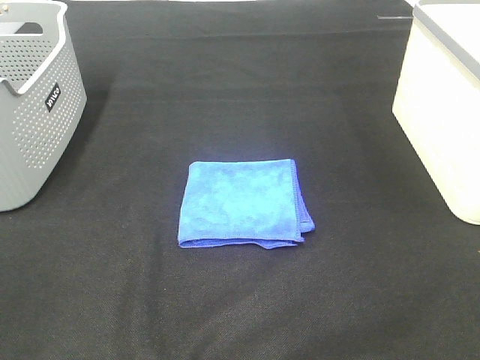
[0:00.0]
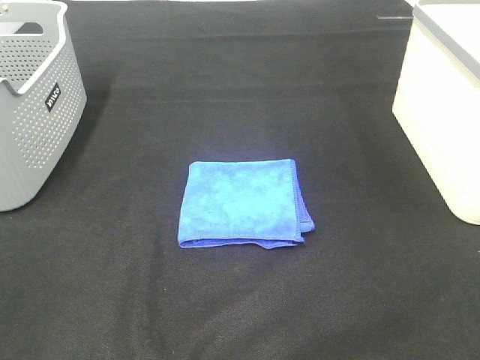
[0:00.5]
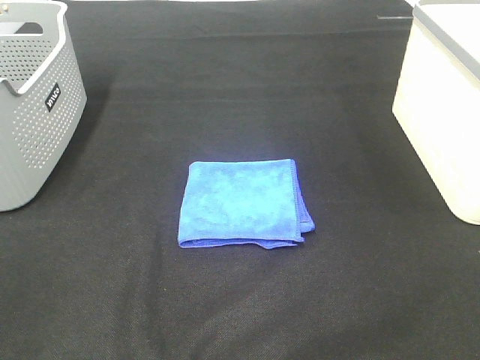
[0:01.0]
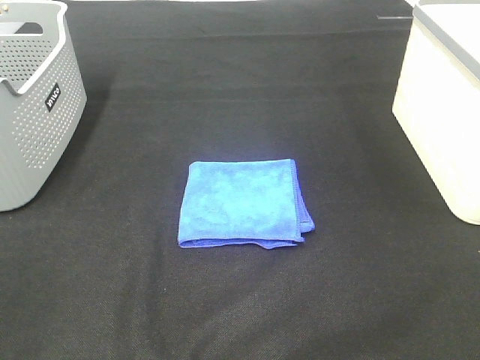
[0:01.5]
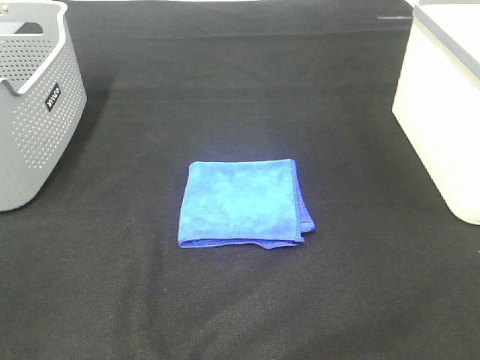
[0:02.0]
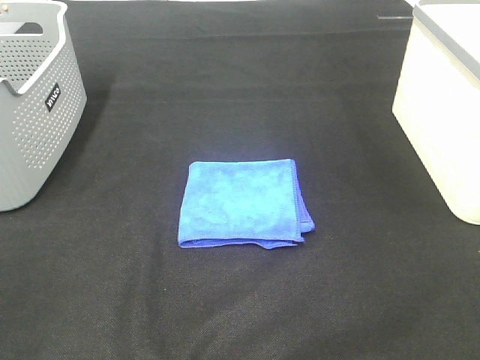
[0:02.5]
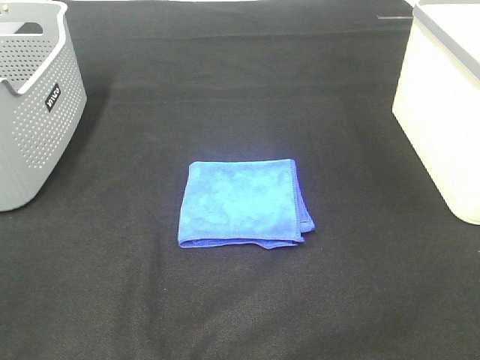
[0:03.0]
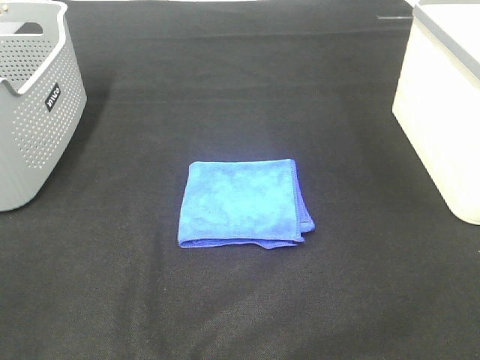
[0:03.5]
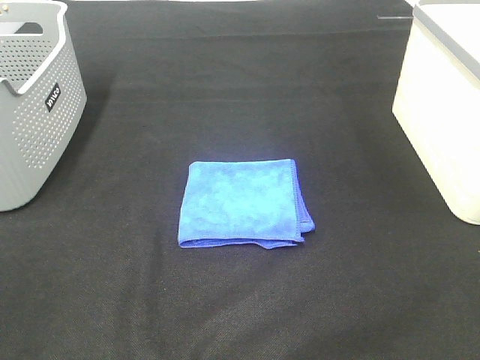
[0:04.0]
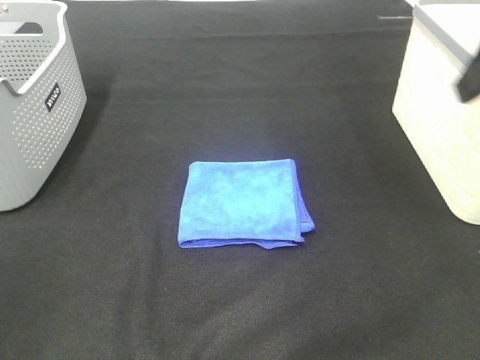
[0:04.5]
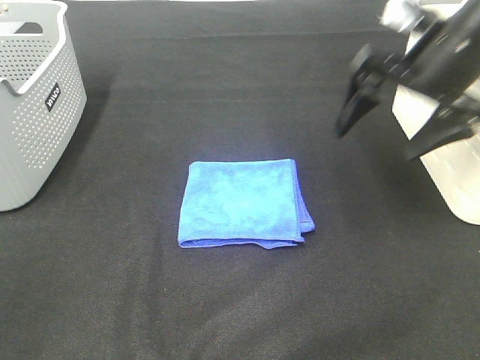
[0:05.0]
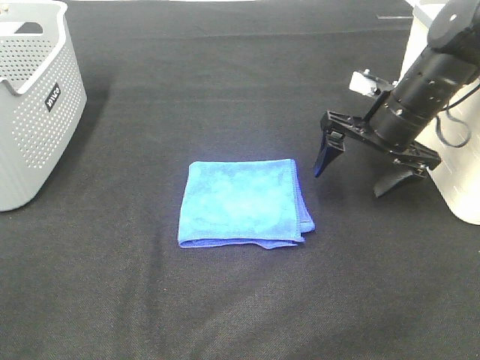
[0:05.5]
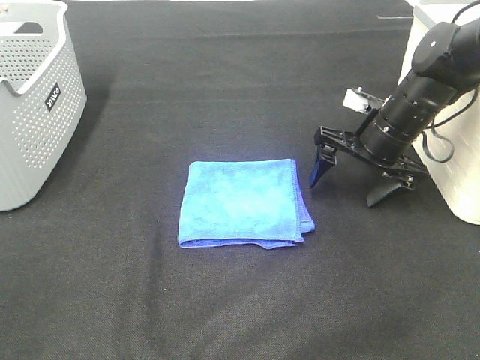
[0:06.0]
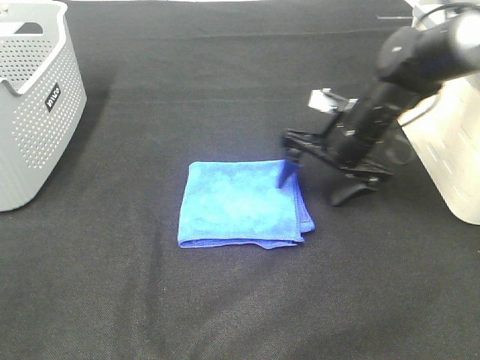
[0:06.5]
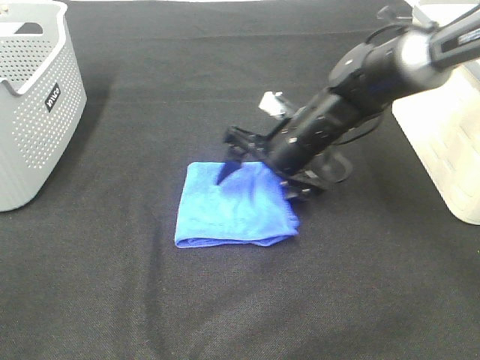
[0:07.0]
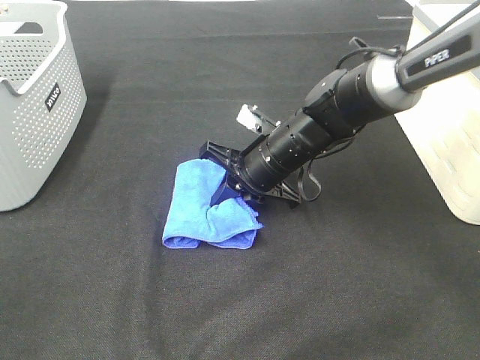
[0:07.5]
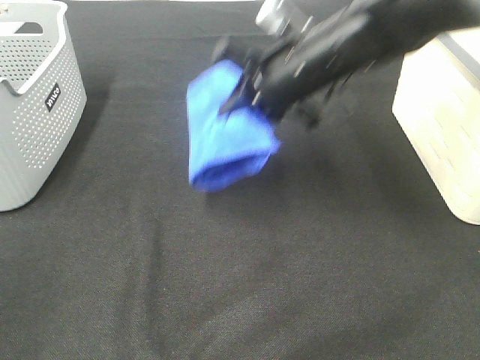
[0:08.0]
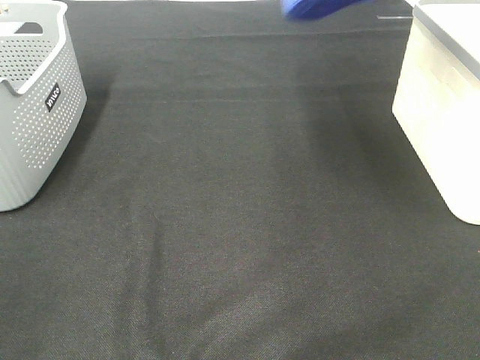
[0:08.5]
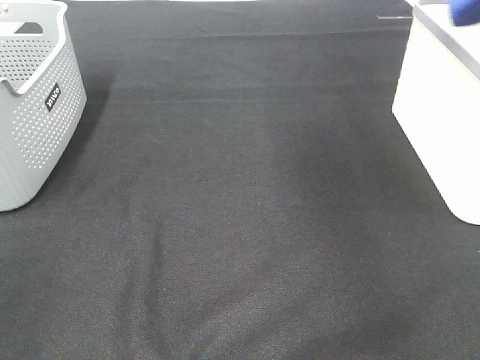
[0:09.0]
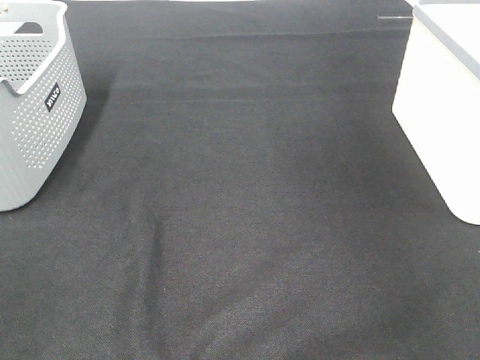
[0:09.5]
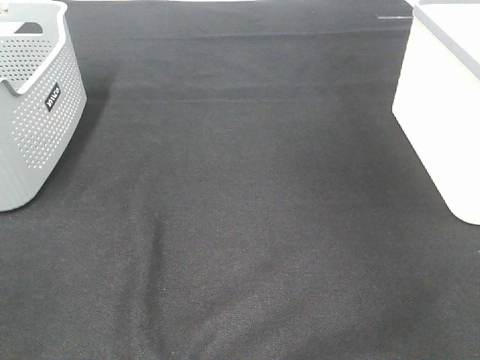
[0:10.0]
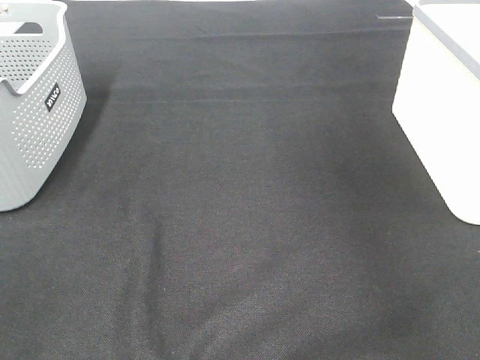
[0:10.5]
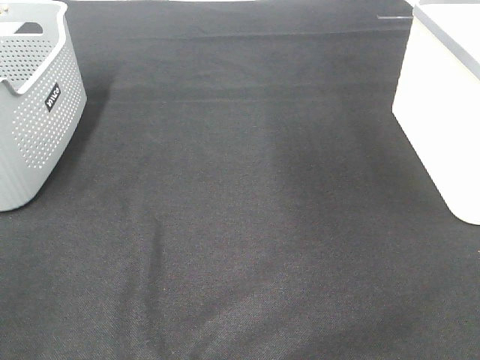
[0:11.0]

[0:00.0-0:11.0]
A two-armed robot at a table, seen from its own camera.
Step, 0:00.0 to 0:07.0: Right hand: grab the folded blue towel.
Step, 0:07.5 to 0:10.0: Right hand: place the blue towel in right basket.
0:00.0 to 0:03.5: Neither gripper changes place.
0:03.5 to 0:05.5: The right gripper goes approximately 40 cm forward.
0:05.5 to 0:07.5: The right gripper shifts roughly 15 cm to the left and downward, and closes.
0:07.5 to 0:09.0: The right gripper travels upward and to the right by approximately 40 cm.

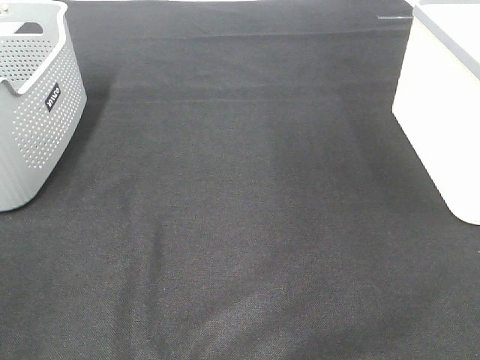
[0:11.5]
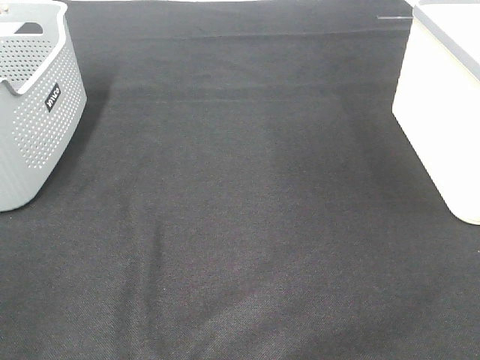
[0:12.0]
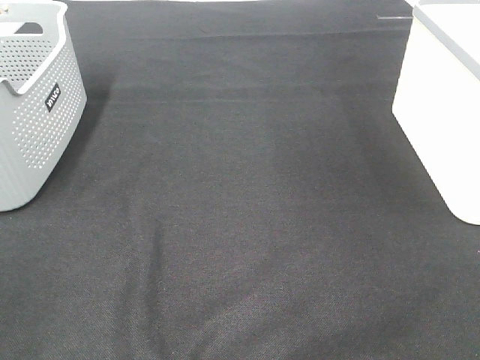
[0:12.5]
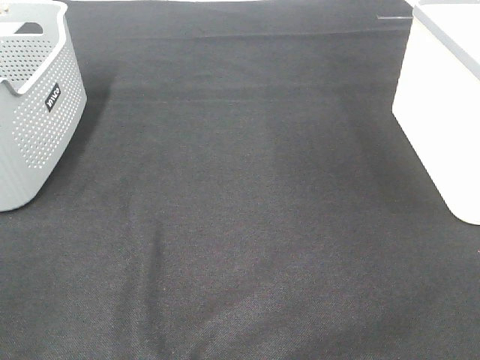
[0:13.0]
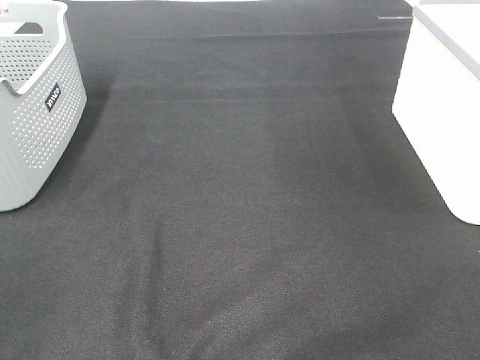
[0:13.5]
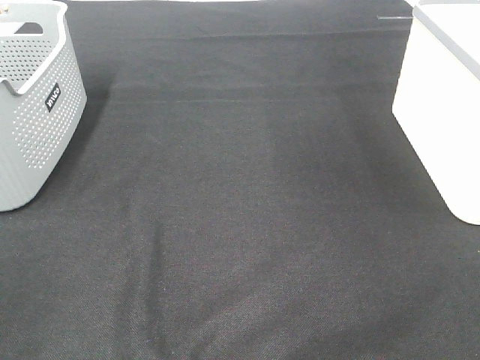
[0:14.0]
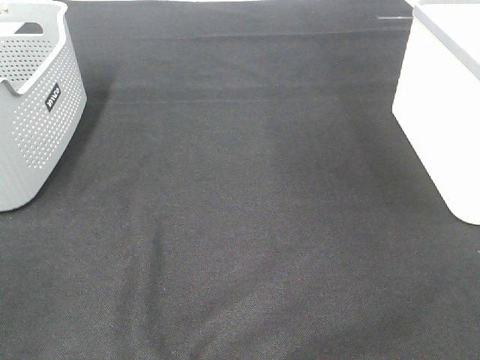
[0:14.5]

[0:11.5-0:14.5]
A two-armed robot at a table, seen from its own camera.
0:13.0 to 0:14.5: Neither gripper changes place.

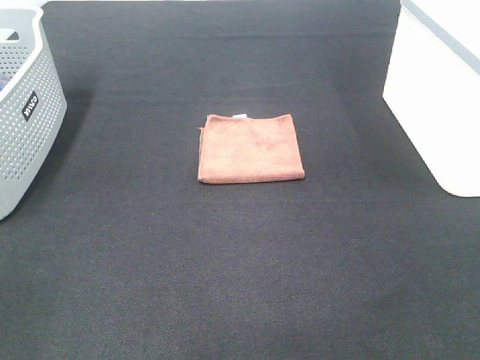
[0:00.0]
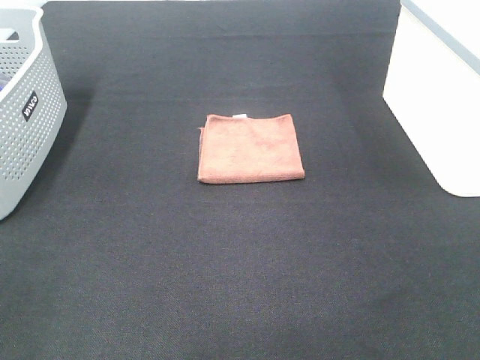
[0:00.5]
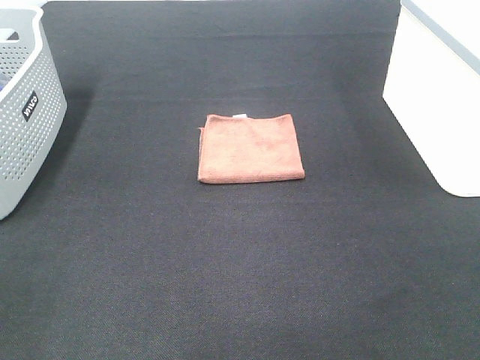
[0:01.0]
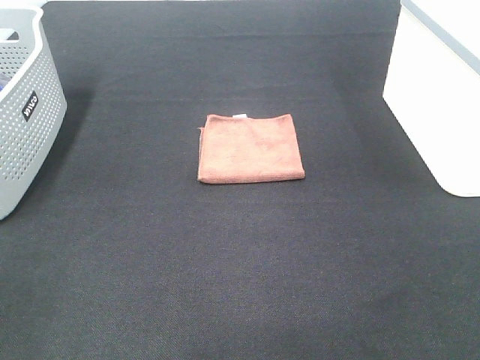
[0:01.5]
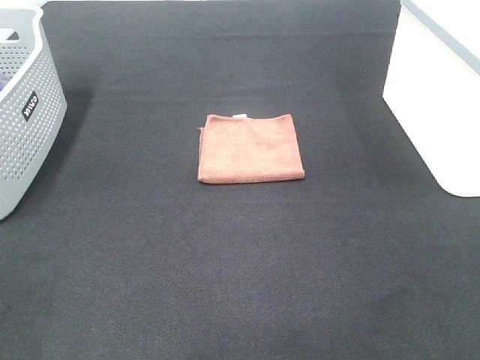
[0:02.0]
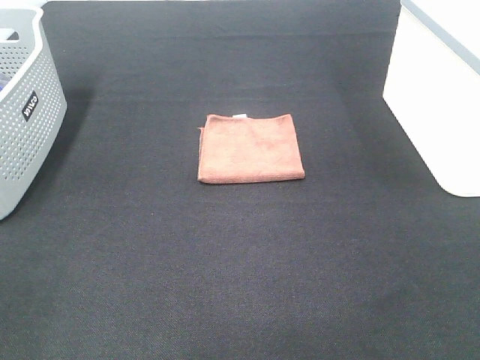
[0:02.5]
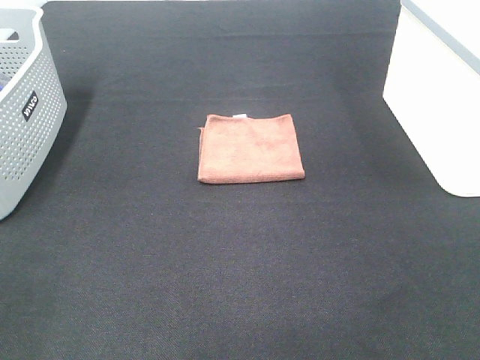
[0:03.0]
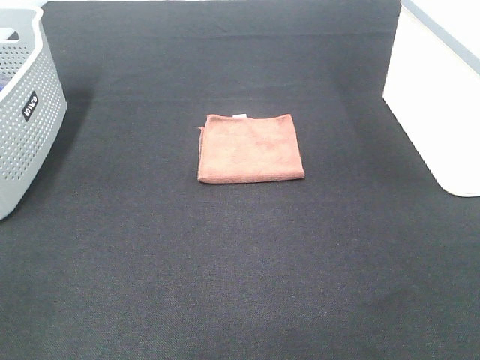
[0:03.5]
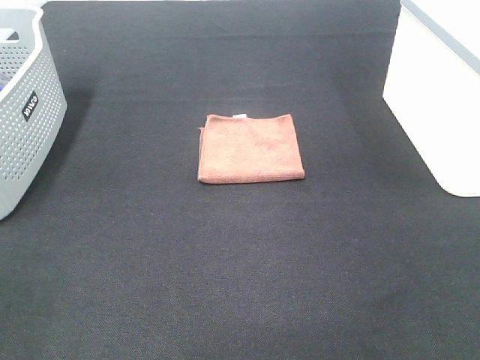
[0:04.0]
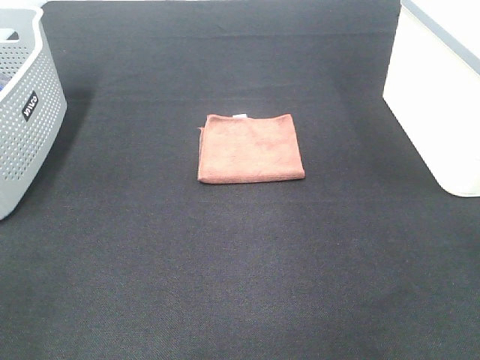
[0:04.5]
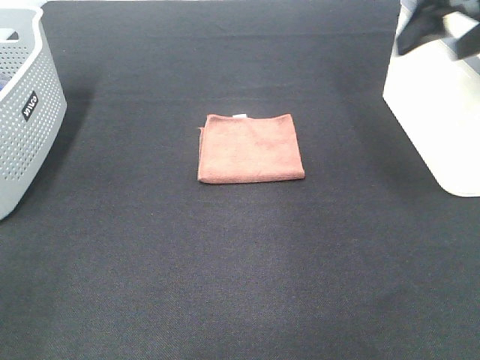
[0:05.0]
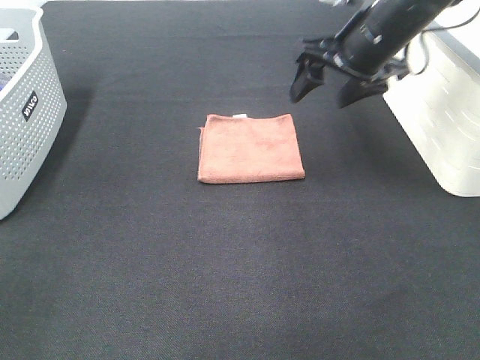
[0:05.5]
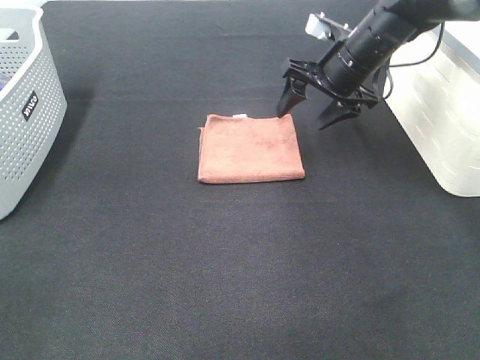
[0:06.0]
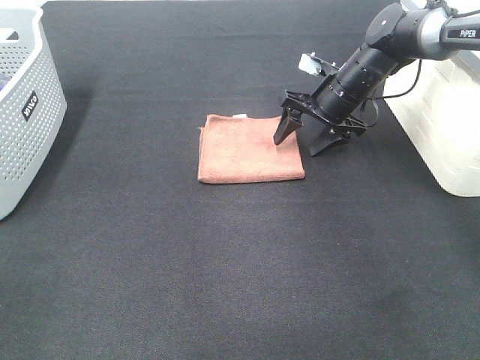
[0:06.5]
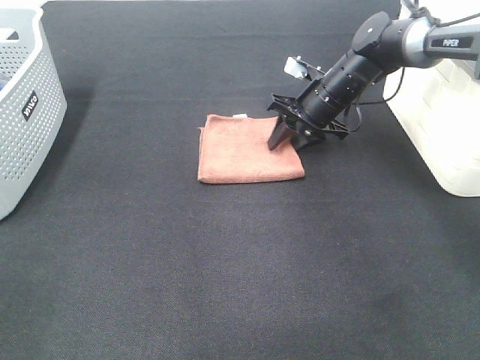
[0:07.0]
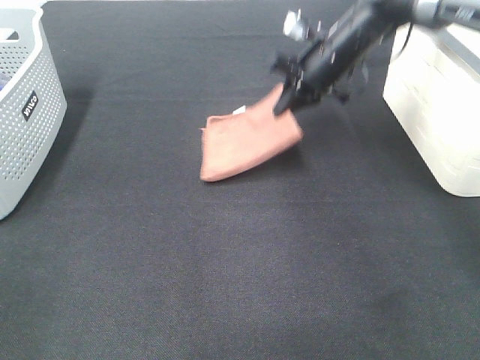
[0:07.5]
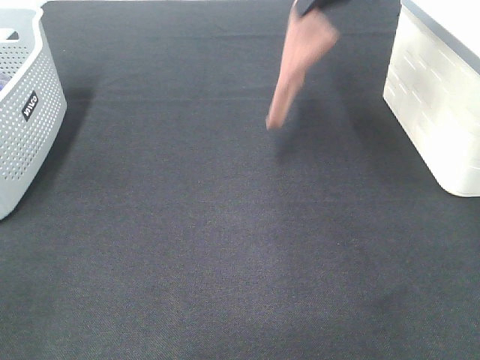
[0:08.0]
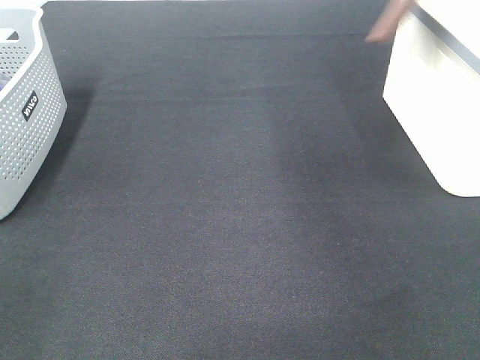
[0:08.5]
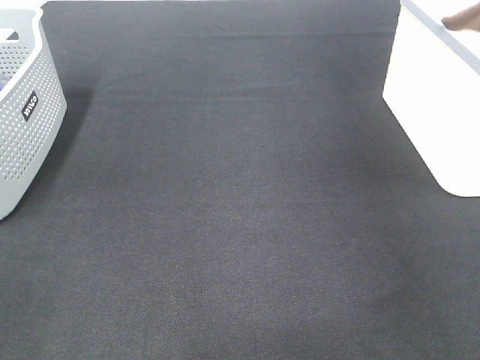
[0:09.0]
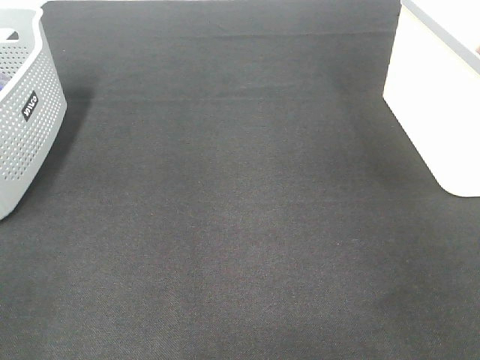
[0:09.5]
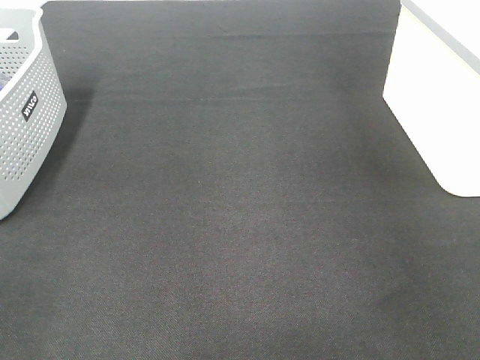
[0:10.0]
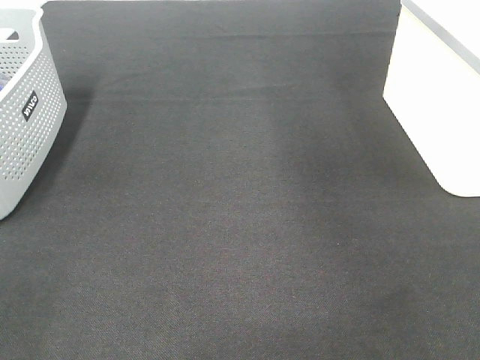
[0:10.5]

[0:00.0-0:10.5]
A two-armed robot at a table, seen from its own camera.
Step, 0:00.0 to 0:07.0: Right hand: grab the folded brown towel.
Step, 0:07.5 to 0:10.0: Right hand: place the brown towel in right basket.
0:00.0 to 0:02.0: Neither gripper changes place.
0:04.0 to 0:06.5: The right gripper moves forward and downward, some 50 cm.
0:06.5 to 0:08.5: The right gripper shifts approximately 35 cm upward and to the right, and closes up.
0:08.5 to 0:10.5: The right gripper reaches some 10 cm to the right, then returns, and opens up.

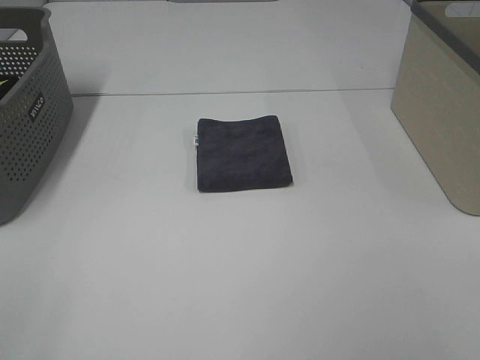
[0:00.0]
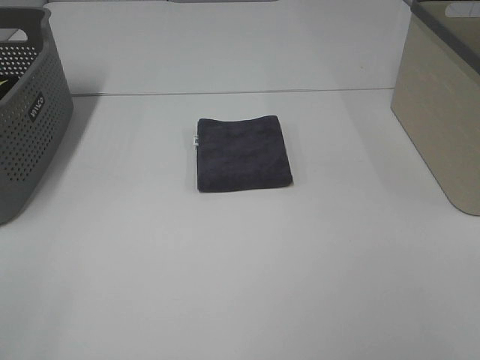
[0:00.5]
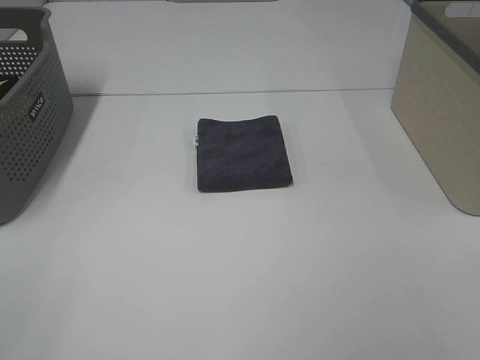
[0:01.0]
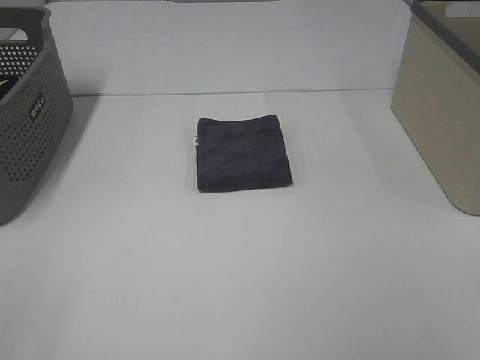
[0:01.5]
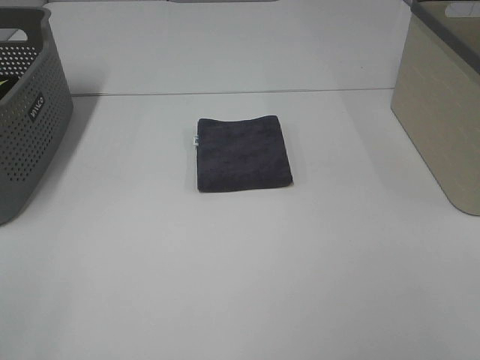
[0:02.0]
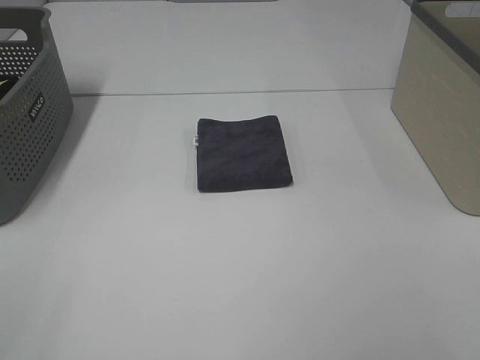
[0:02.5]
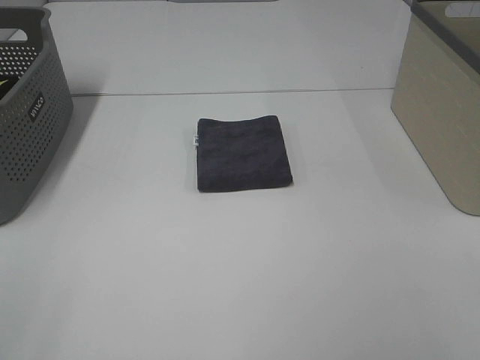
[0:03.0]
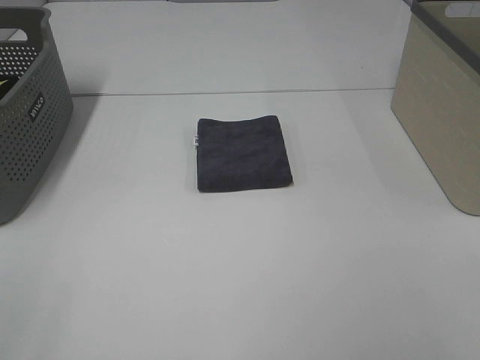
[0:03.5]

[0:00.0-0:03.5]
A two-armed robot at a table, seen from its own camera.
0:00.0 to 0:03.5: The two grippers keep their place.
